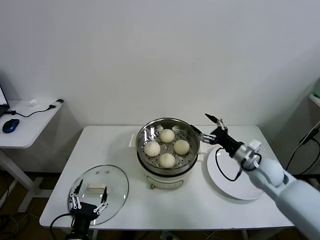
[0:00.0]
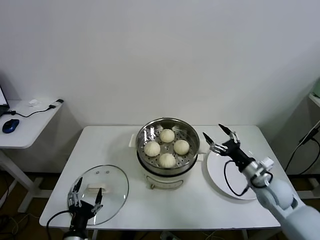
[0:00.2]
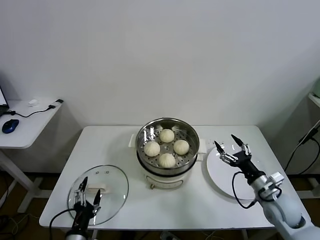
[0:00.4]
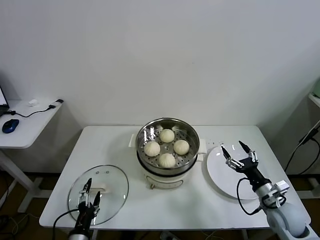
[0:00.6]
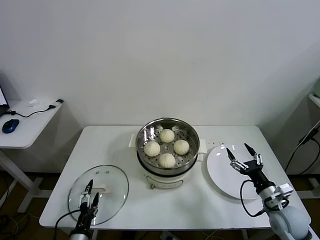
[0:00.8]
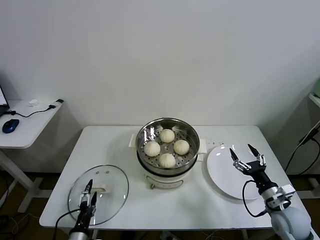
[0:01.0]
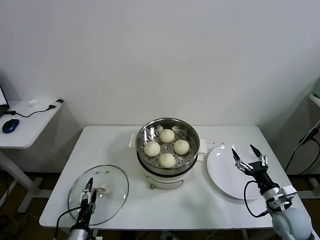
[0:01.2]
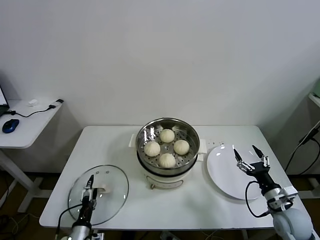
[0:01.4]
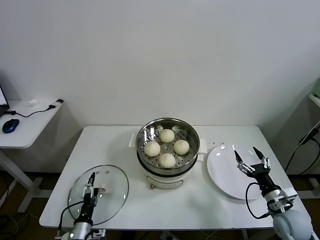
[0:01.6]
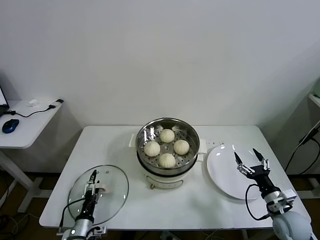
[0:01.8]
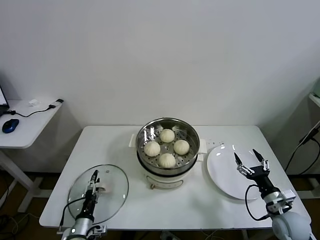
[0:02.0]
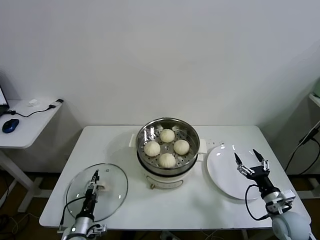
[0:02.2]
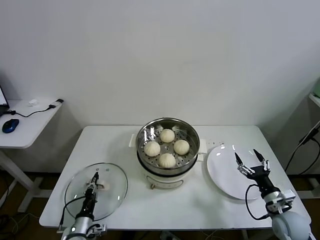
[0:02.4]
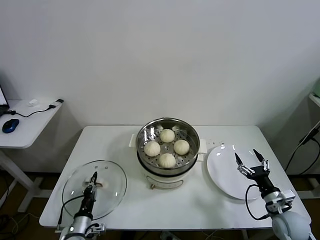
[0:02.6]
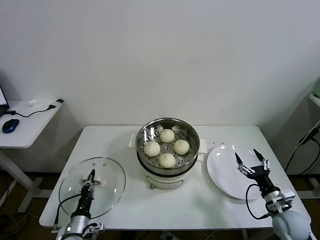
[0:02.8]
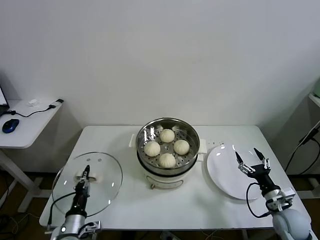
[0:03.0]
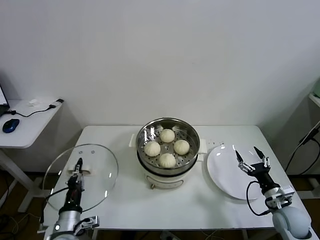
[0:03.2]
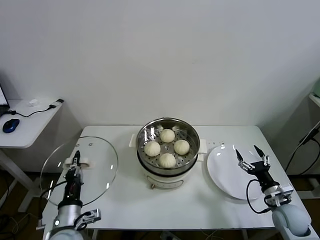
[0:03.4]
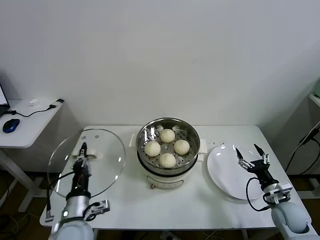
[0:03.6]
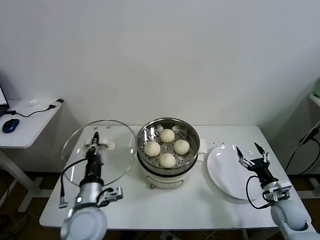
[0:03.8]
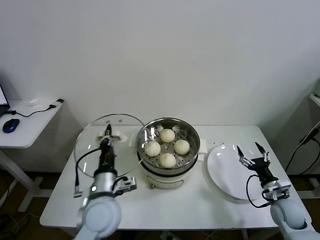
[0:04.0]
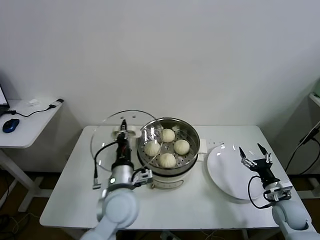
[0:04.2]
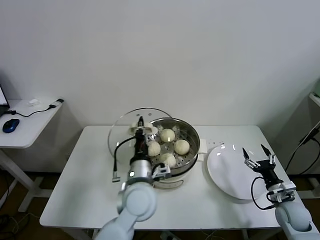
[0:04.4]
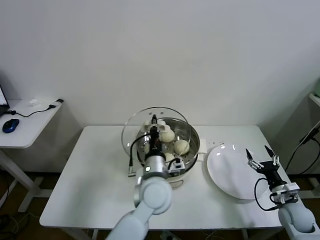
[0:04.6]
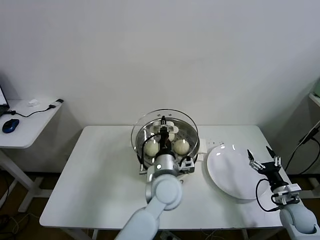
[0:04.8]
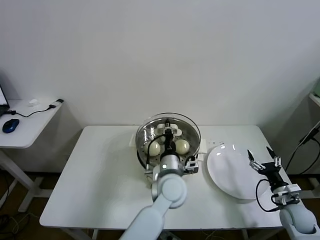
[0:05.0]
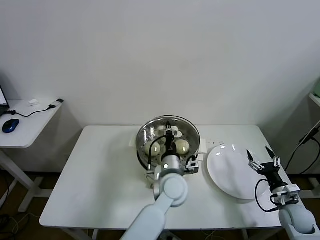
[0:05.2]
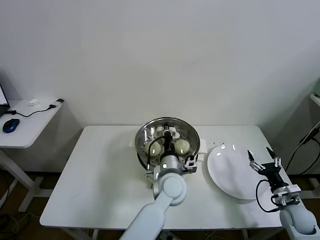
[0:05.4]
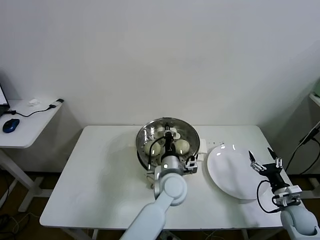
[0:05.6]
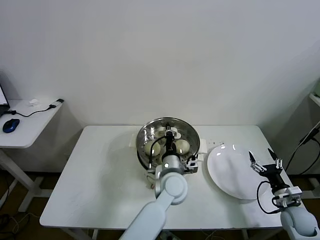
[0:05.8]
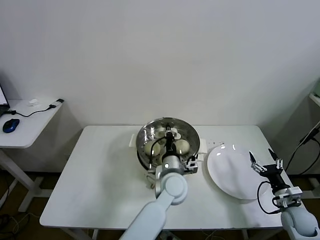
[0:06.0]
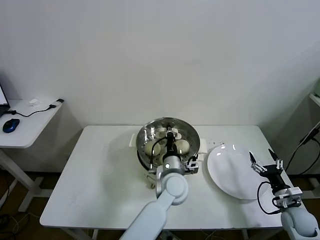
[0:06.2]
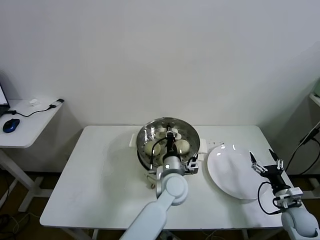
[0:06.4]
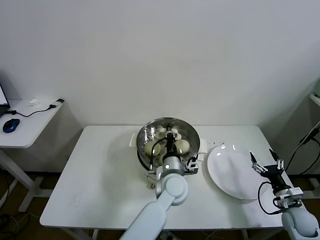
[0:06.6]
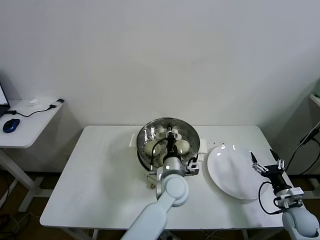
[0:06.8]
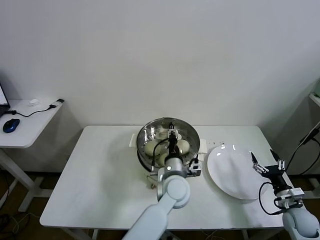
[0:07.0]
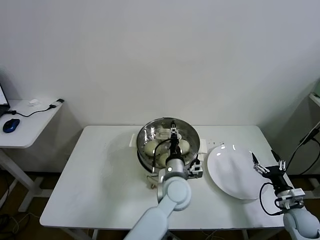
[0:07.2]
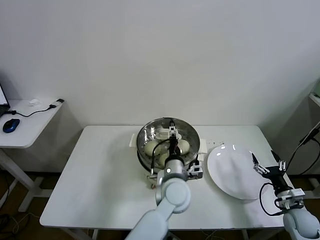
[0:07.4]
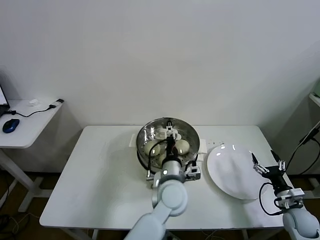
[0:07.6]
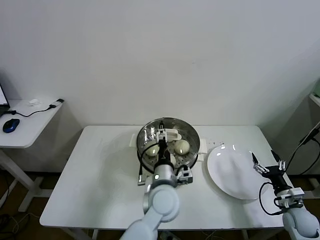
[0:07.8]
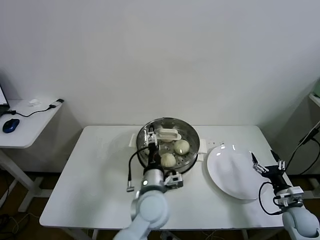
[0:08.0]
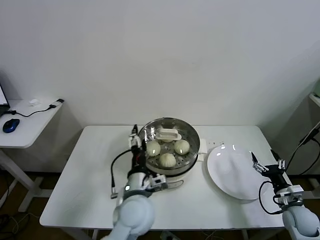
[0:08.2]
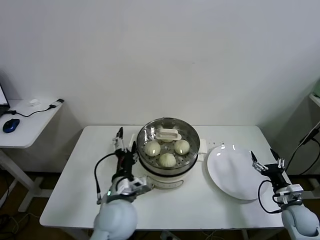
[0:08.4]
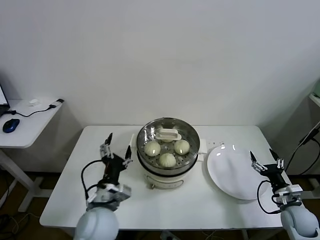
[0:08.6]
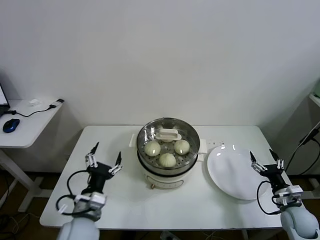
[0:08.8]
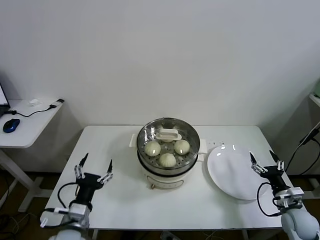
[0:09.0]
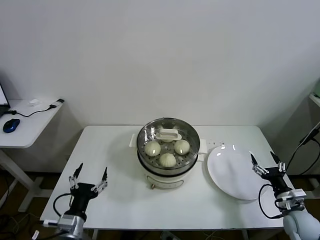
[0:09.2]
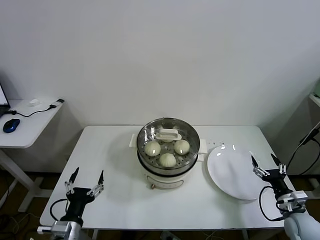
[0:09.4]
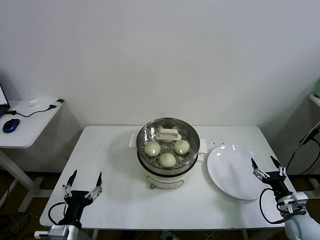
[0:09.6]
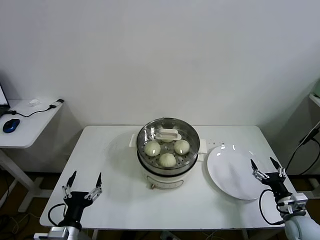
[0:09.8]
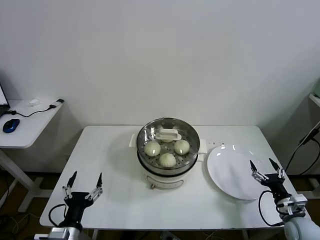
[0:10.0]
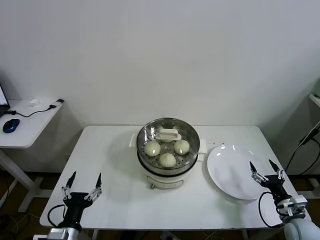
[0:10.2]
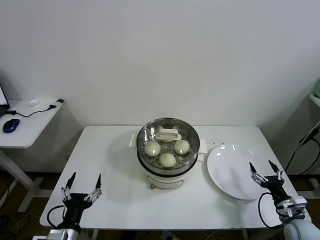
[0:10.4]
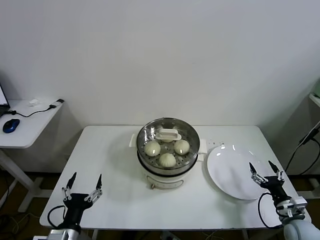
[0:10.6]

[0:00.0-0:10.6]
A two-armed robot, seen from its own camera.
Task of the whole recording: take steamed baozi put them in steamer.
Step, 0:00.0 to 0:02.4: Grasp the pot lid with left gripper.
Step, 0:02.6 to 0:07.4: Place the pot lid on the steamer with left gripper.
0:00.0 to 0:01.6: The left gripper moves downward, forward and to the left, about 15 cm, while the right gripper moves backward, downward and to the right, about 20 cm.
0:01.6 to 0:03.0: The left gripper goes approximately 5 cm upward, and closes its fingers.
0:03.0 to 0:04.6: The left gripper goes some 35 cm to the right, upward and forward.
0:04.6 to 0:06.0: The left gripper moves to the right and downward, roughly 10 cm.
0:06.0 to 0:07.6: The left gripper opens.
0:07.6 to 0:09.0: The left gripper is displaced to the left and backward by about 30 cm.
0:09.0 to 0:10.6: The left gripper heads backward, covering about 5 cm.
